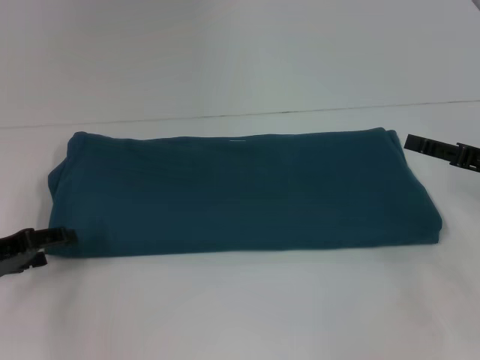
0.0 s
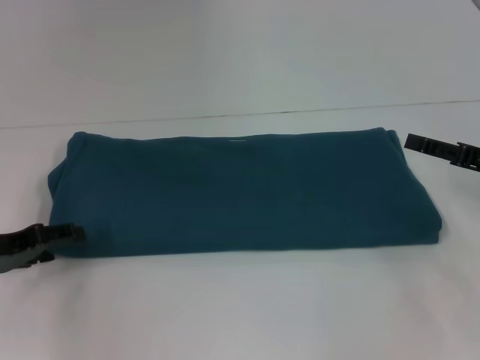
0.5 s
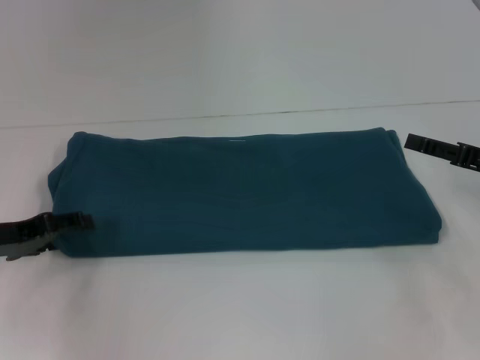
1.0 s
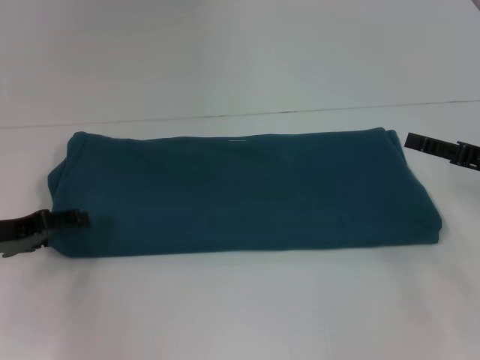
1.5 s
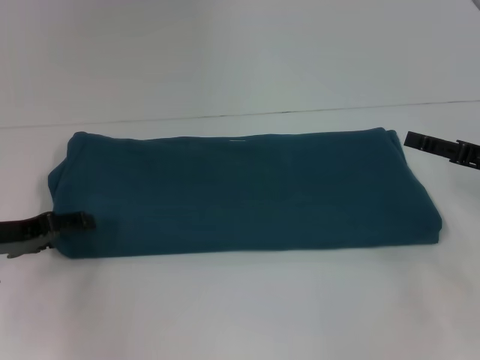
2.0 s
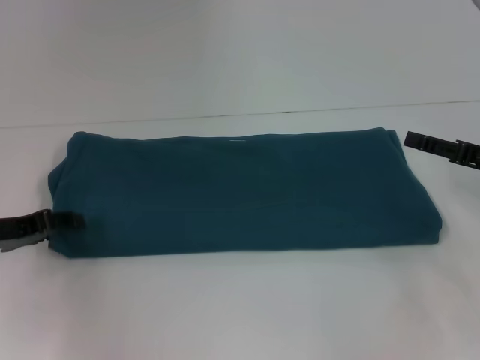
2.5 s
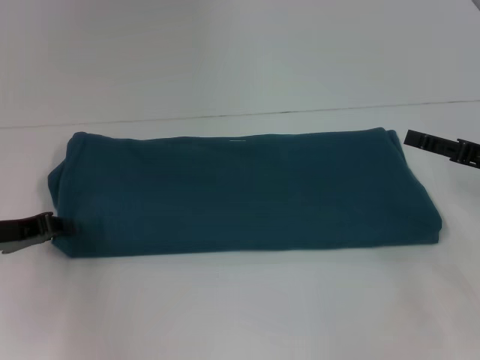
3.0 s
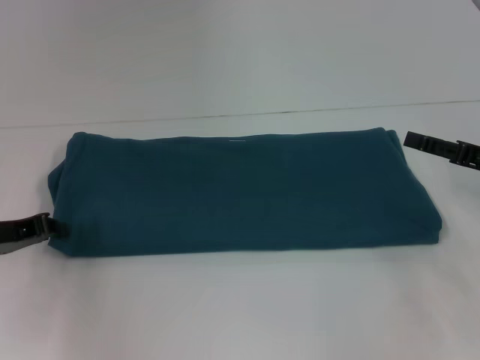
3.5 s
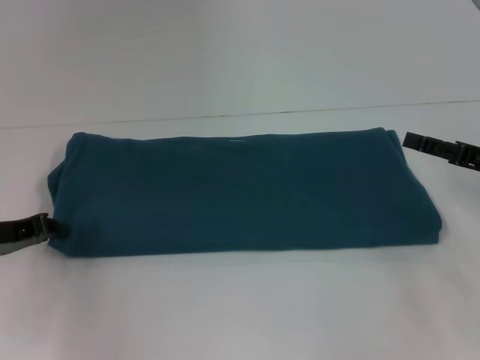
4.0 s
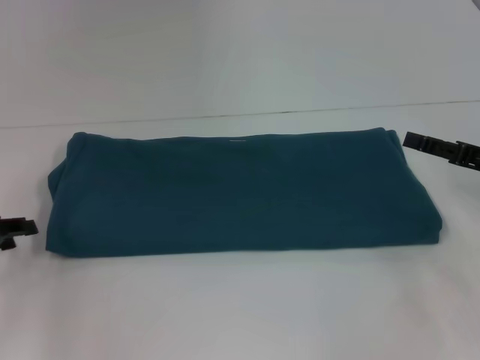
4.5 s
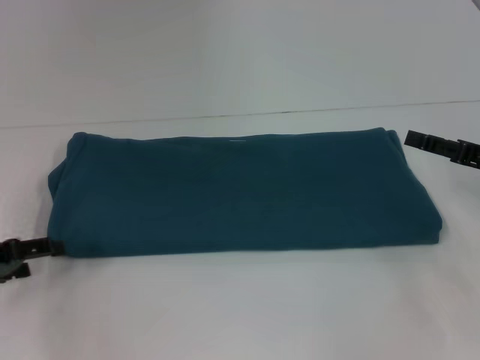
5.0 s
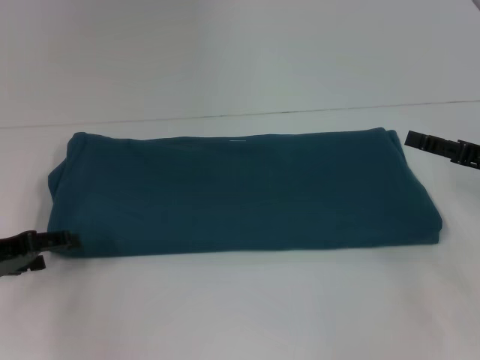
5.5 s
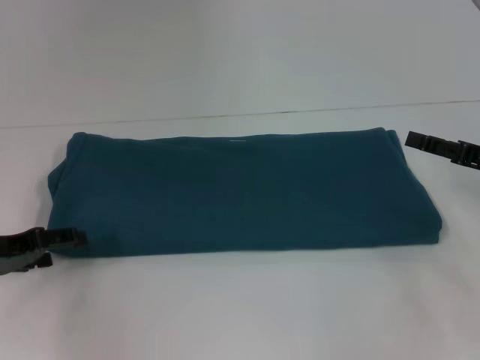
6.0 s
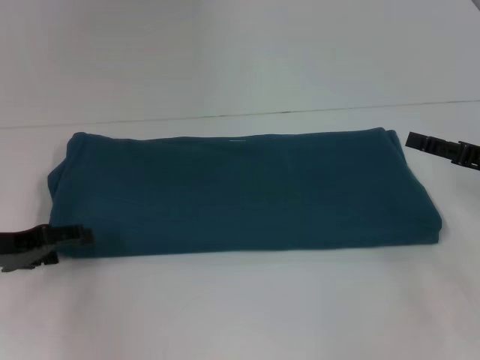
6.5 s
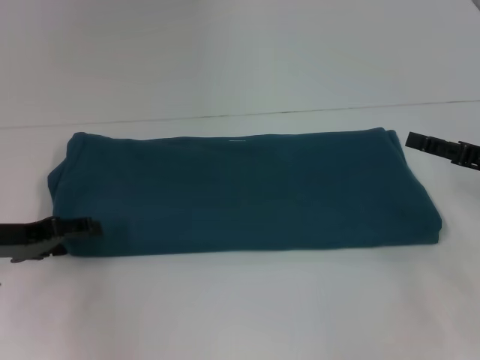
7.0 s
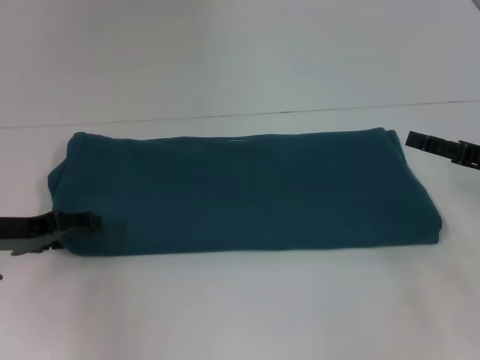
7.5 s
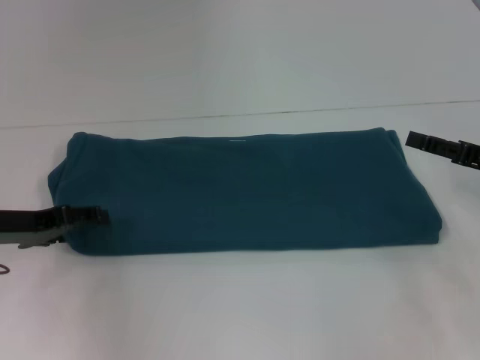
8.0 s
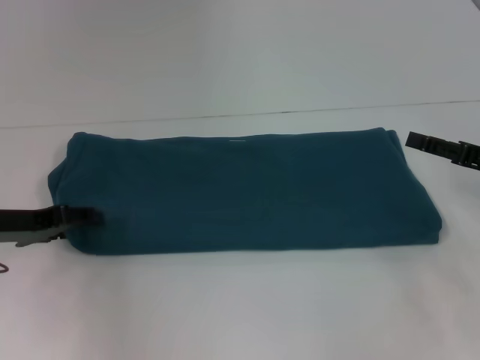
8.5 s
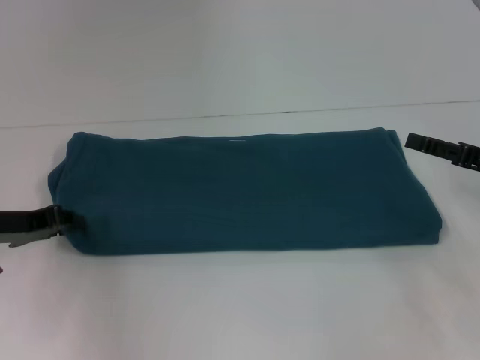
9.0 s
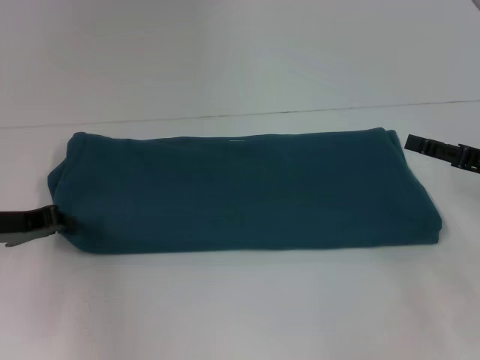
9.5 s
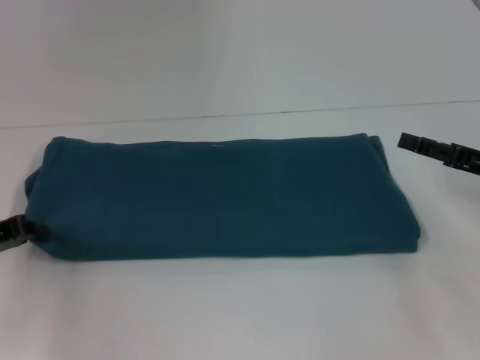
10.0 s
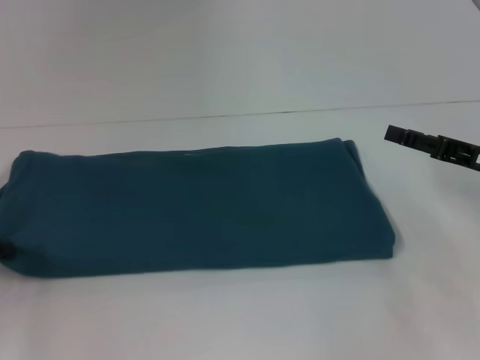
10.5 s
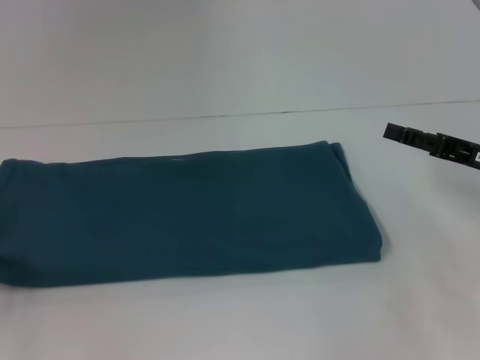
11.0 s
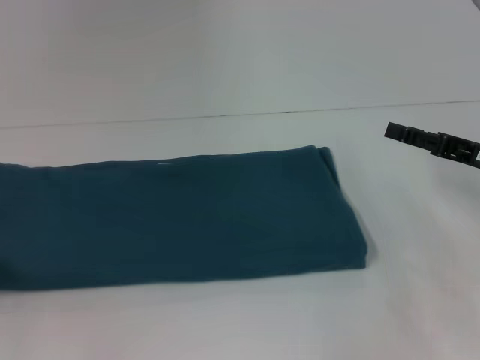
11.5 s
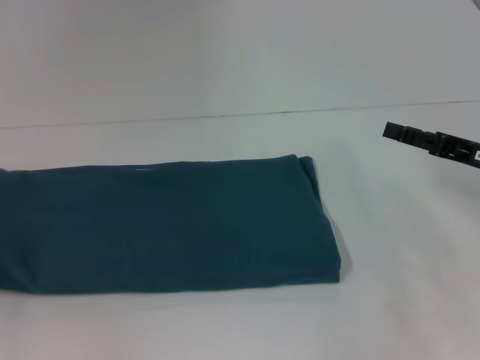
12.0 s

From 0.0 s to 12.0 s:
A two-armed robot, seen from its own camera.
From 0.0 s to 2.0 s: The grippers stay close to where they were, moving slightly.
From 4.0 s to 6.0 s: The left gripper opens up.
From 6.0 s to 8.0 s: There are only small adjustments of the grippers.
From 8.0 s to 10.0 s: The left gripper closes up.
From 10.0 s to 12.0 s: The left gripper is displaced to the left and backward by roughly 10 cm.

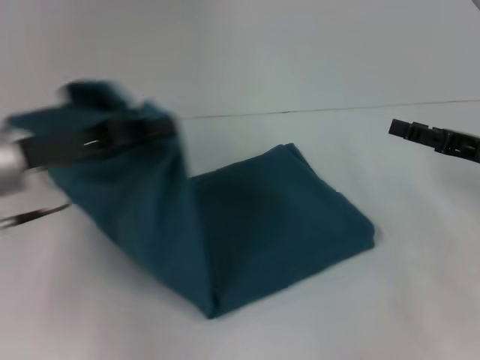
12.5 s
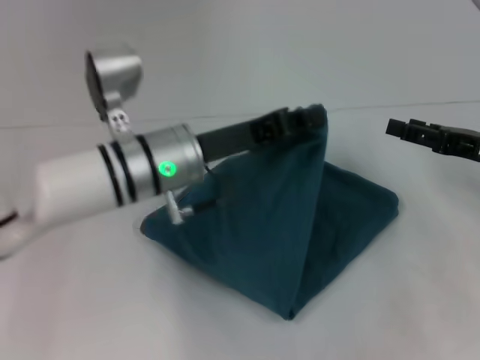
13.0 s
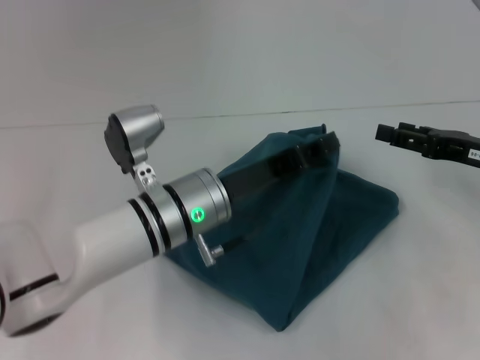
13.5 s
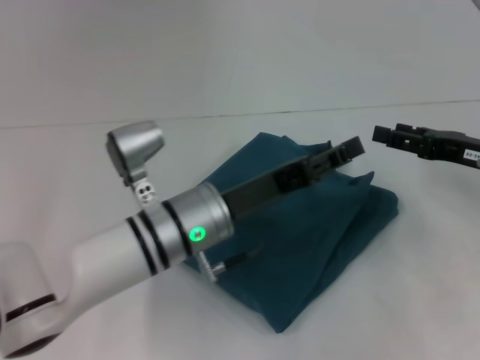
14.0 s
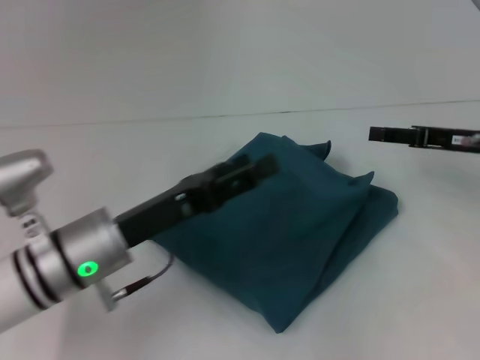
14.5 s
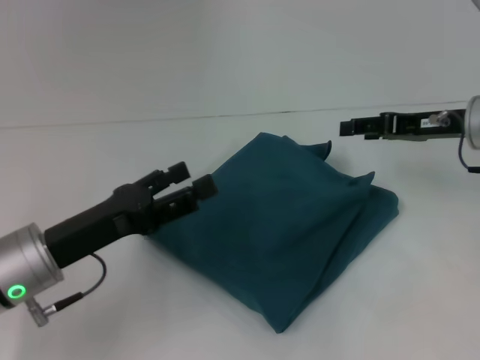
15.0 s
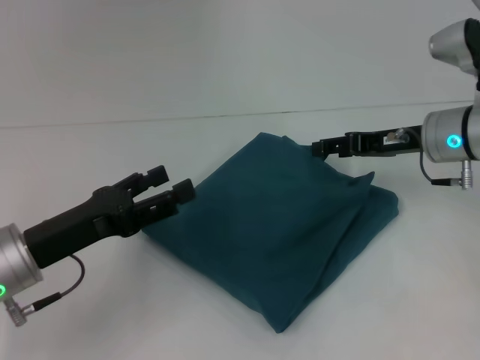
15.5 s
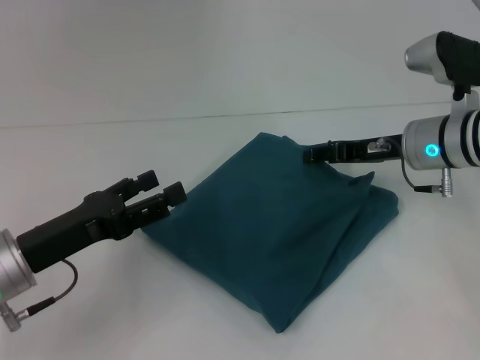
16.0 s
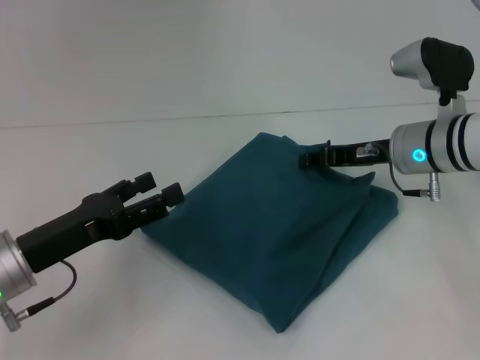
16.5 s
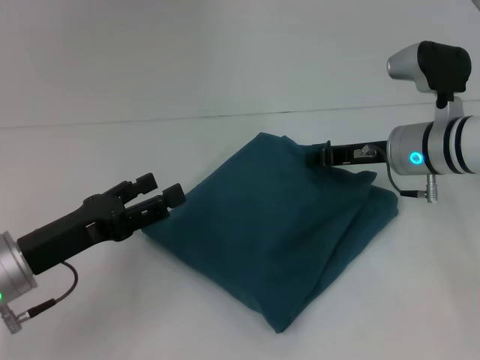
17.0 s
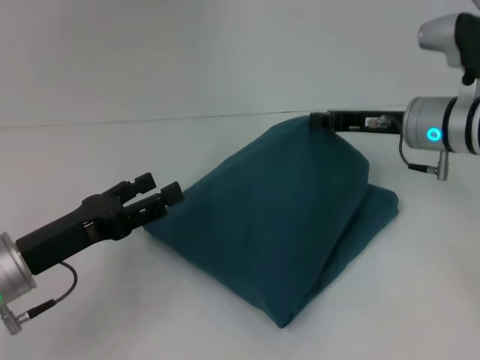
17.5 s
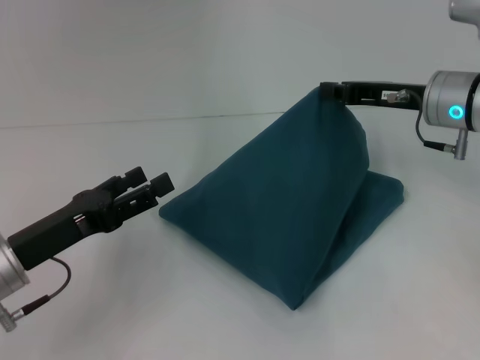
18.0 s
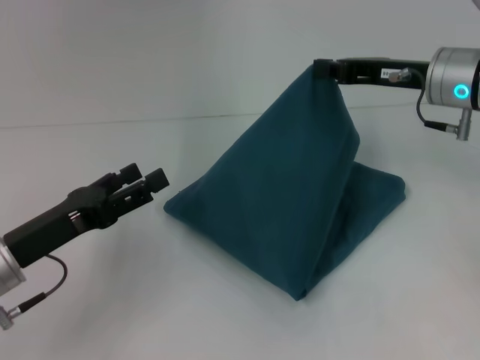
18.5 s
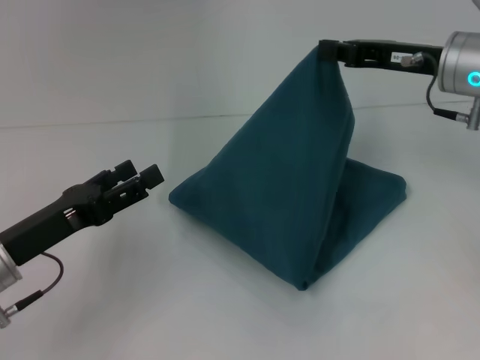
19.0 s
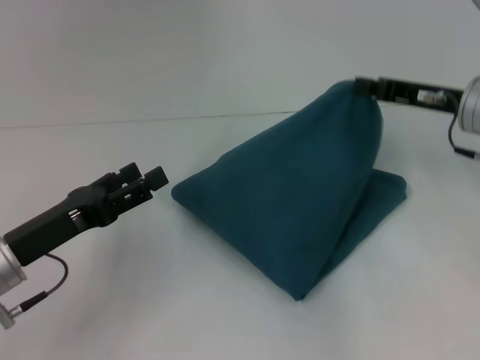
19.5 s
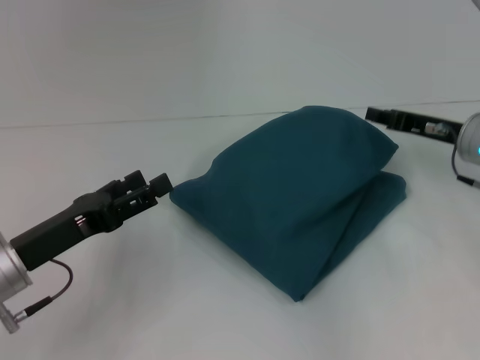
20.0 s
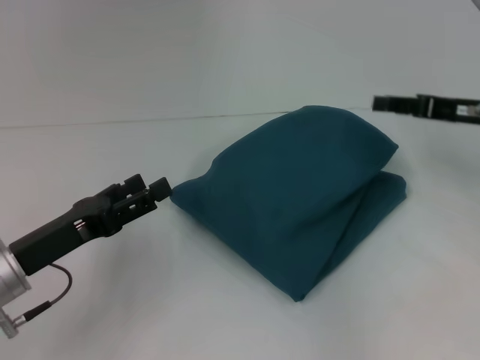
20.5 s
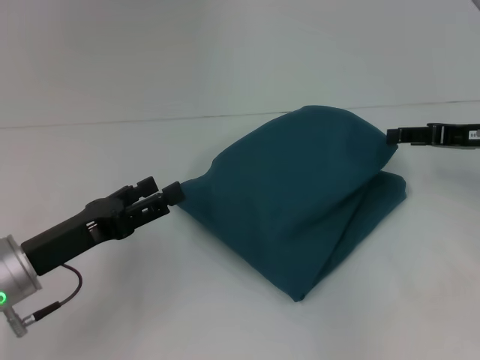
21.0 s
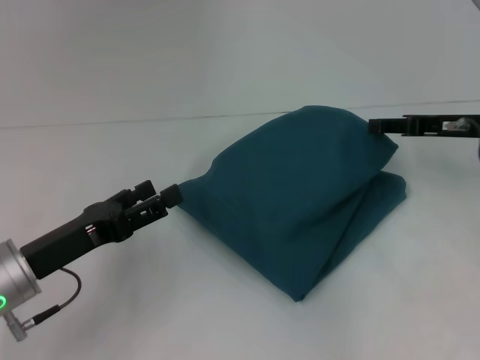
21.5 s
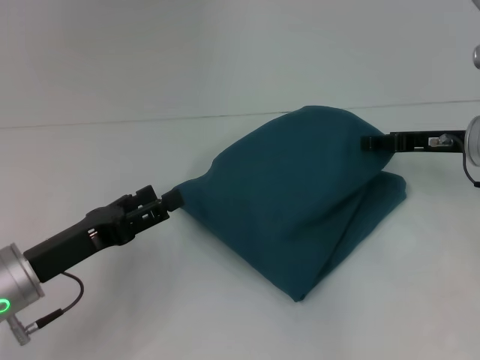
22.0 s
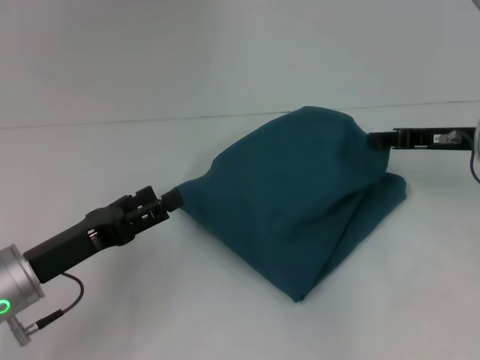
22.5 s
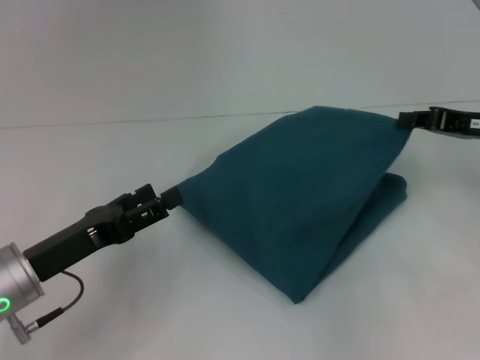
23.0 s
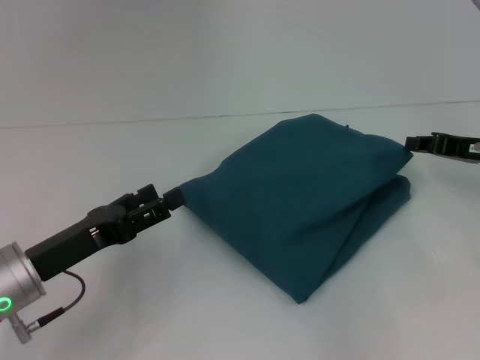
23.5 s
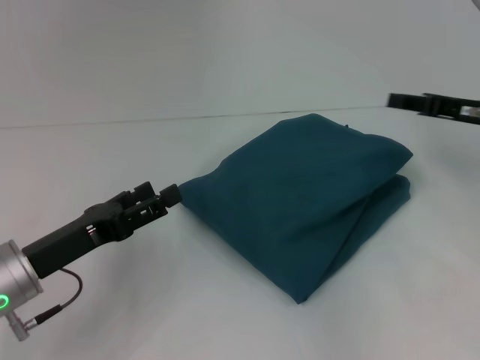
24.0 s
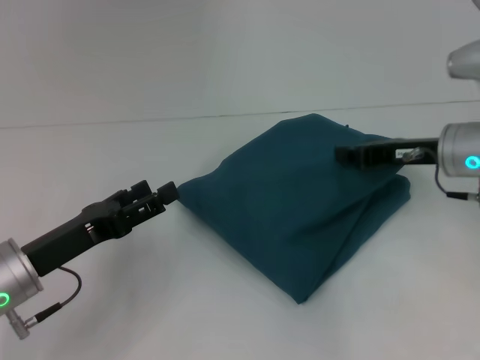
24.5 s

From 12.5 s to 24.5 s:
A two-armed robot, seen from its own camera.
From 12.5 s to 14.5 s: The left gripper travels downward and to the right by roughly 10 cm, and opens.
From 14.5 s to 16.5 s: The two grippers go some 10 cm to the left.
From 16.5 s to 18.5 s: The right gripper heads upward, covering about 5 cm, and closes up.
From 18.5 s to 20.5 s: The right gripper moves to the right, about 10 cm, and opens up.
From 20.5 s to 22.5 s: There are only small adjustments of the grippers.
From 22.5 s to 24.5 s: The right gripper closes.

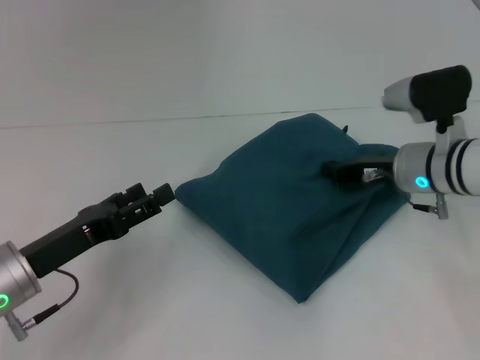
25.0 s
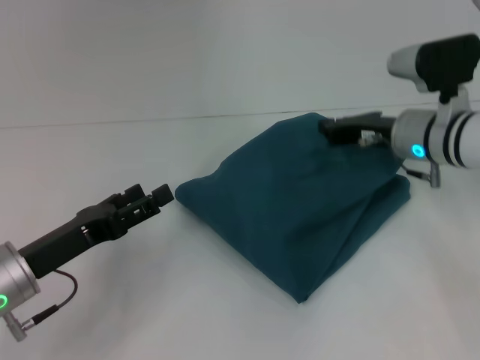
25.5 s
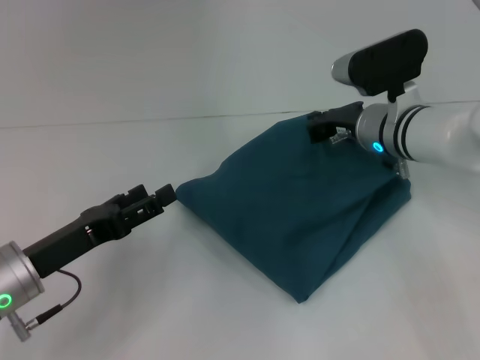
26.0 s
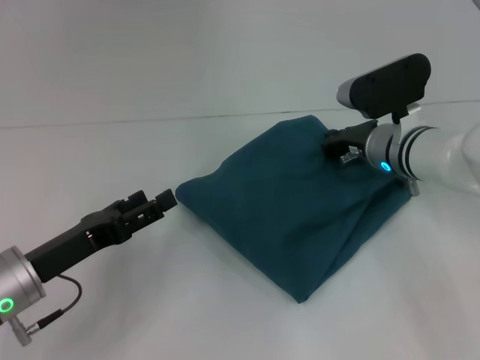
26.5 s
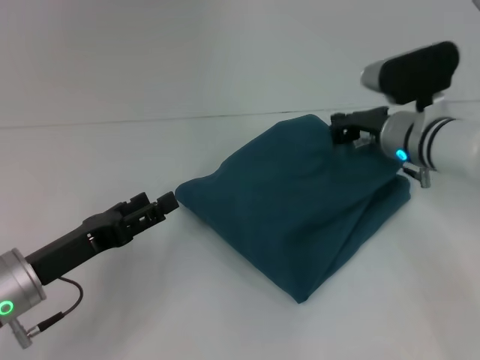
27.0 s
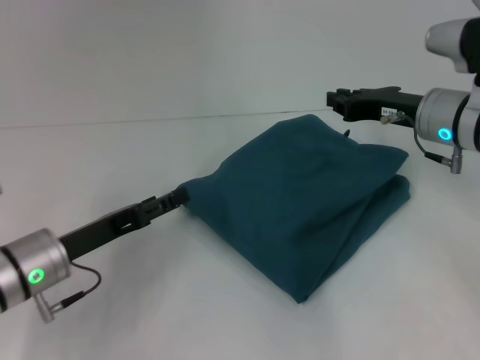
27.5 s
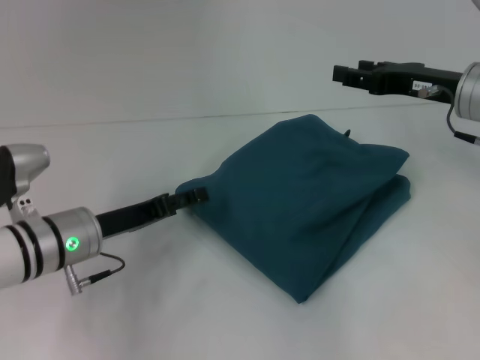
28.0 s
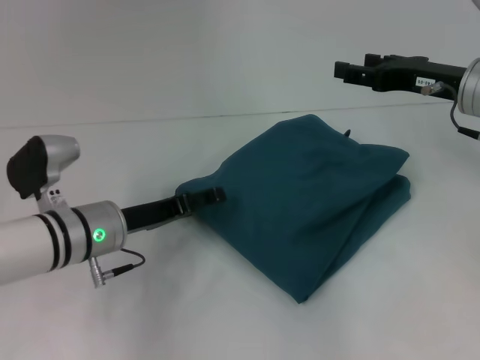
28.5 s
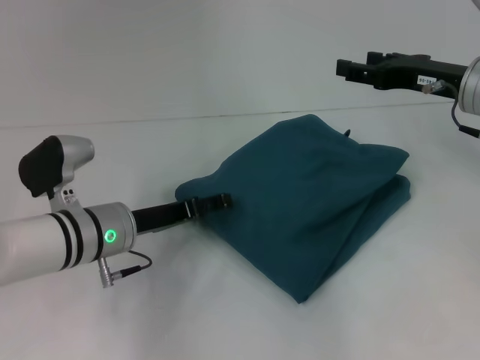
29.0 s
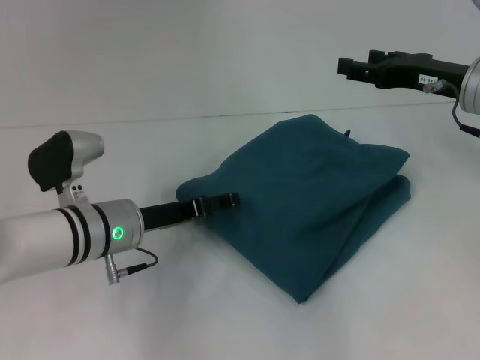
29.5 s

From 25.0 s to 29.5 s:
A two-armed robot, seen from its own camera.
From 27.0 s to 29.5 s: The left gripper is displaced to the right and forward by approximately 10 cm. The right gripper moves upward and to the right, approximately 10 cm, and opens up.
